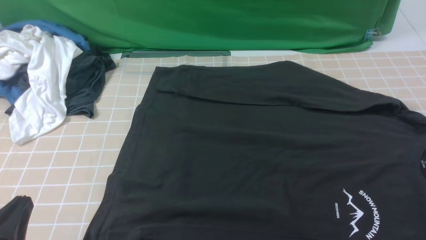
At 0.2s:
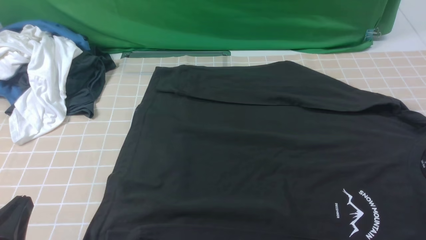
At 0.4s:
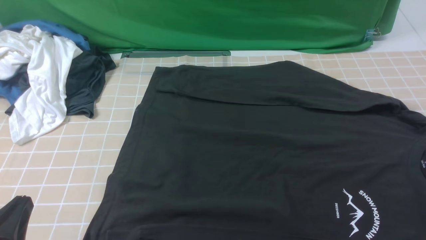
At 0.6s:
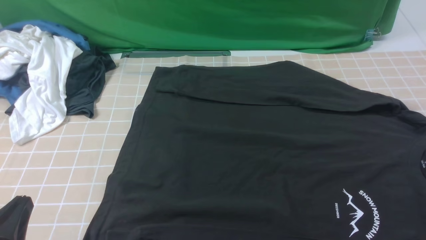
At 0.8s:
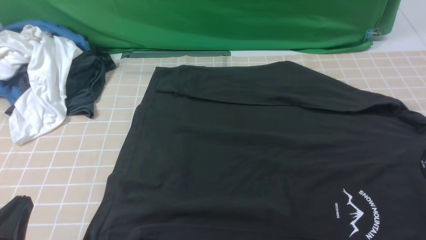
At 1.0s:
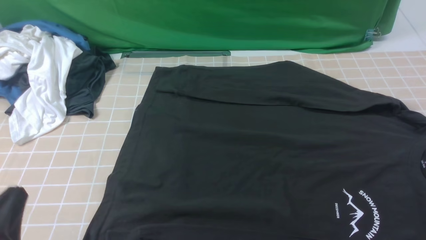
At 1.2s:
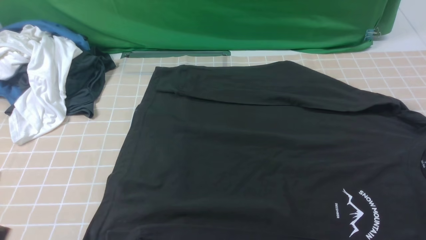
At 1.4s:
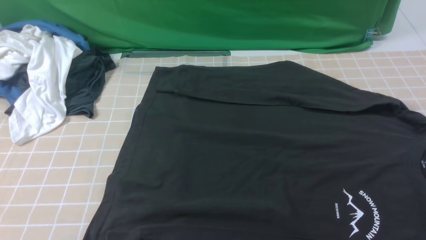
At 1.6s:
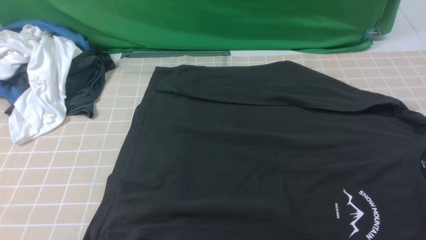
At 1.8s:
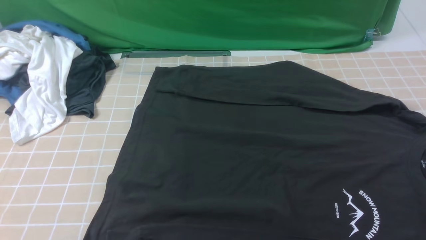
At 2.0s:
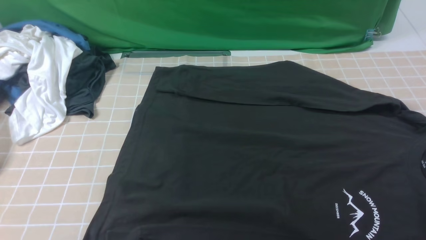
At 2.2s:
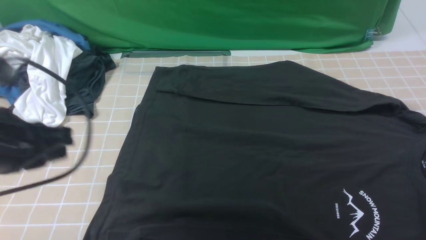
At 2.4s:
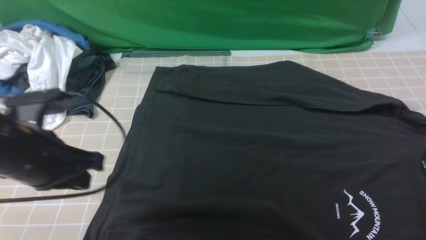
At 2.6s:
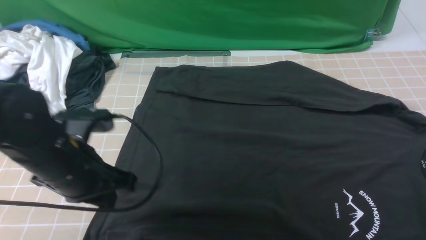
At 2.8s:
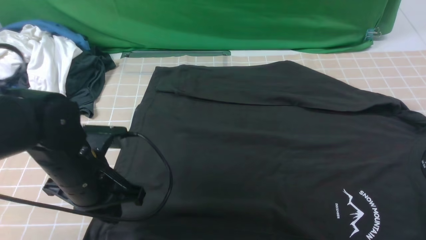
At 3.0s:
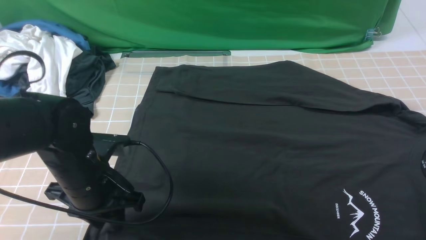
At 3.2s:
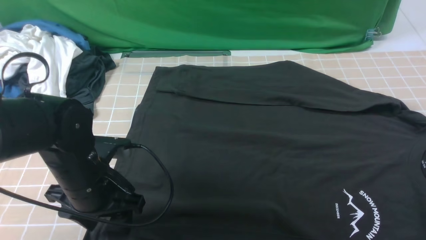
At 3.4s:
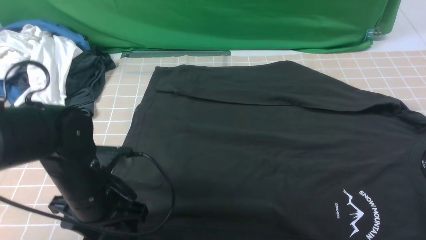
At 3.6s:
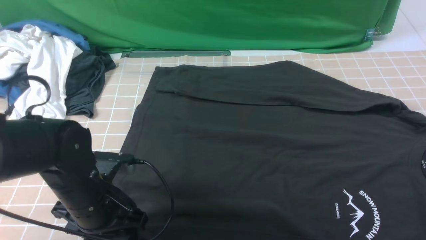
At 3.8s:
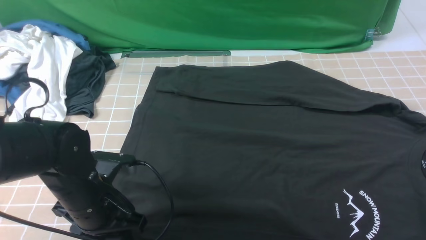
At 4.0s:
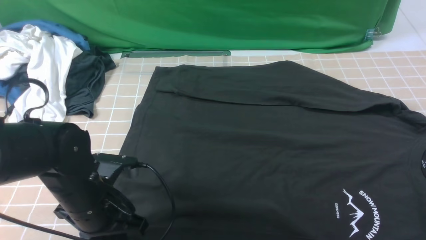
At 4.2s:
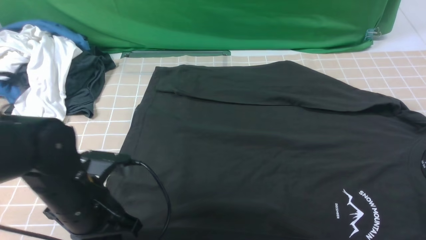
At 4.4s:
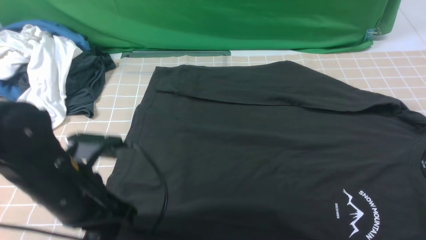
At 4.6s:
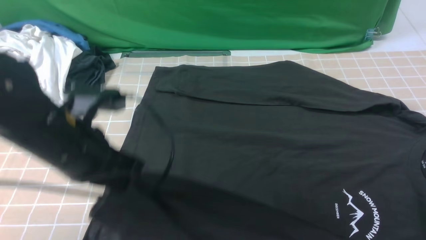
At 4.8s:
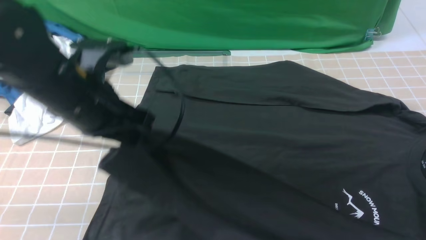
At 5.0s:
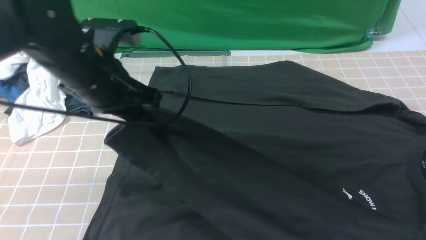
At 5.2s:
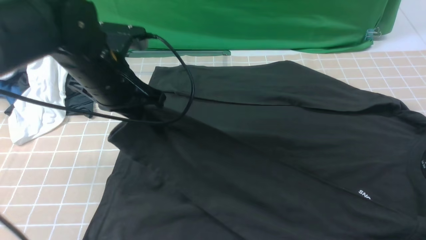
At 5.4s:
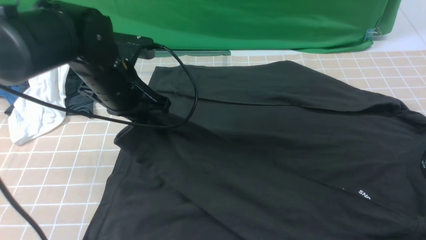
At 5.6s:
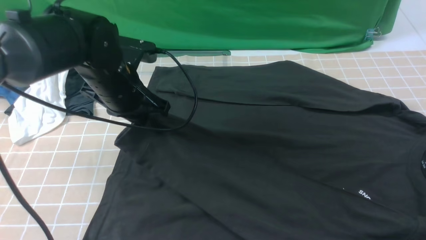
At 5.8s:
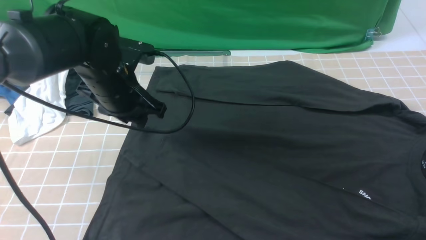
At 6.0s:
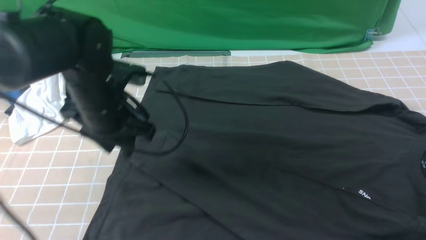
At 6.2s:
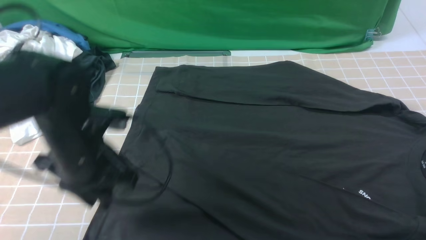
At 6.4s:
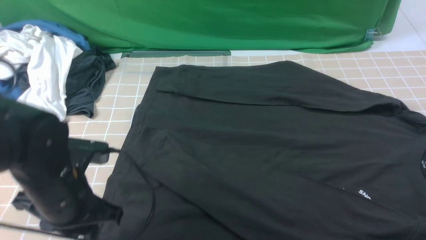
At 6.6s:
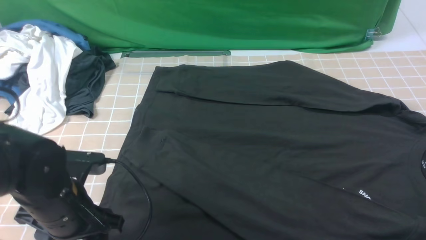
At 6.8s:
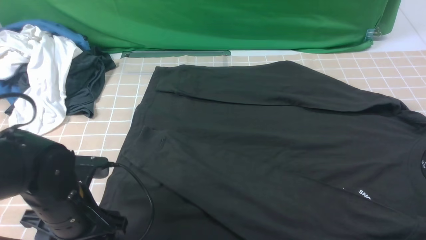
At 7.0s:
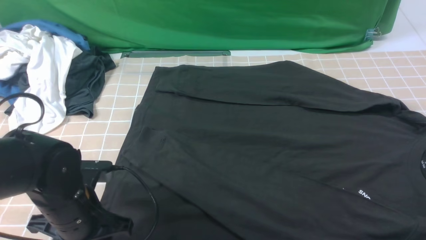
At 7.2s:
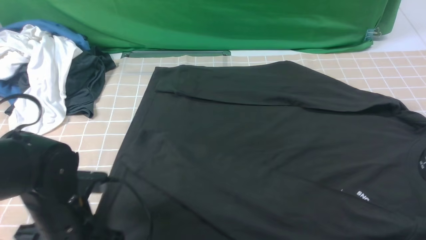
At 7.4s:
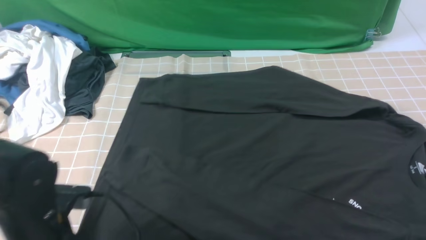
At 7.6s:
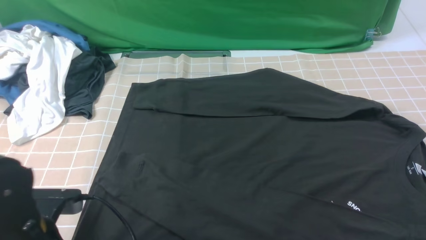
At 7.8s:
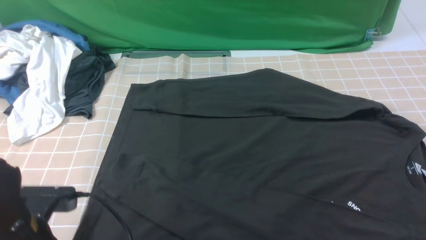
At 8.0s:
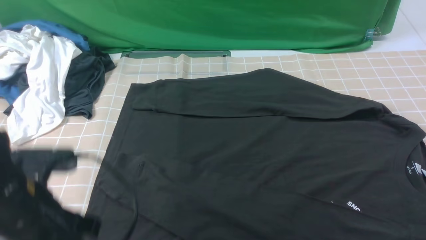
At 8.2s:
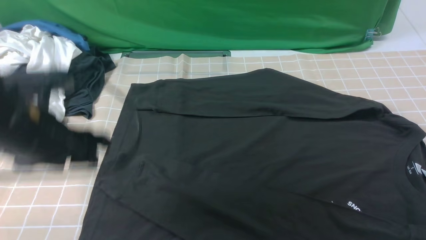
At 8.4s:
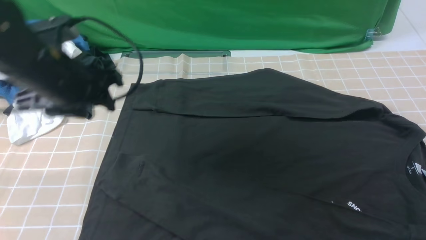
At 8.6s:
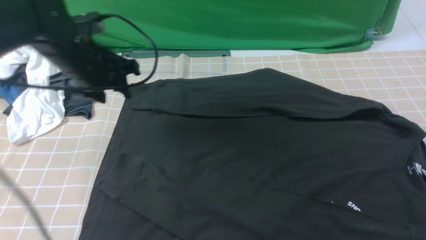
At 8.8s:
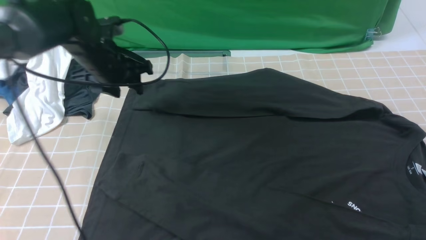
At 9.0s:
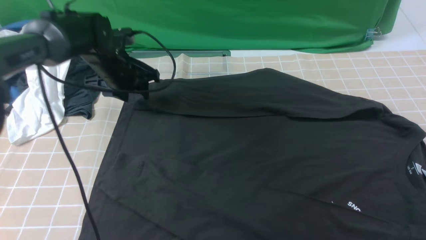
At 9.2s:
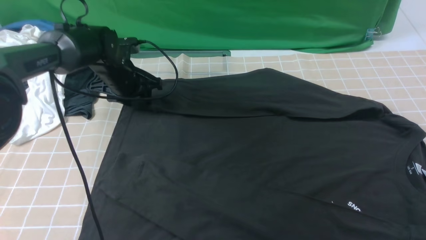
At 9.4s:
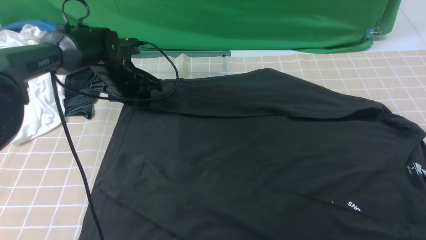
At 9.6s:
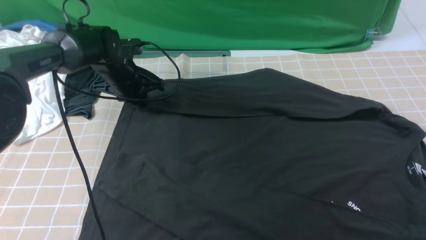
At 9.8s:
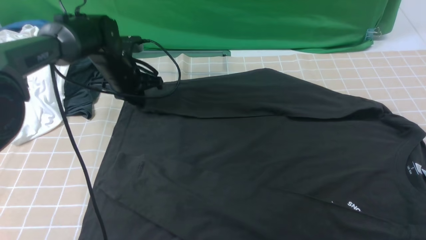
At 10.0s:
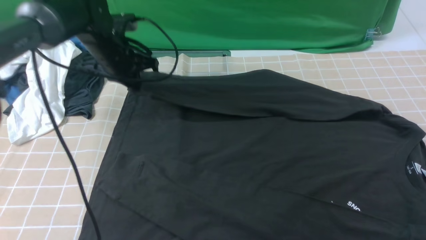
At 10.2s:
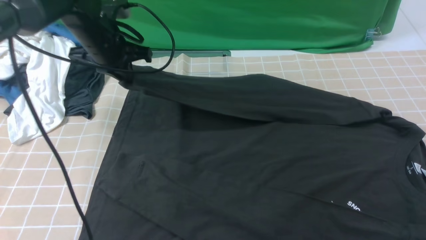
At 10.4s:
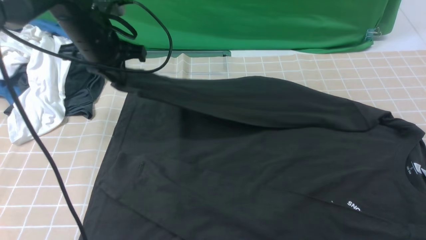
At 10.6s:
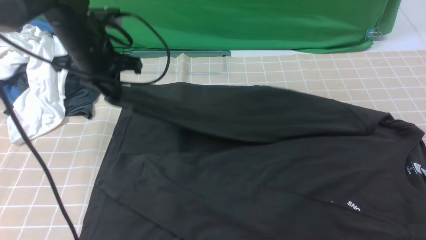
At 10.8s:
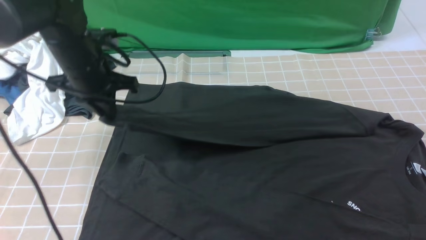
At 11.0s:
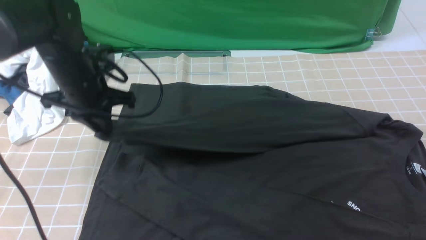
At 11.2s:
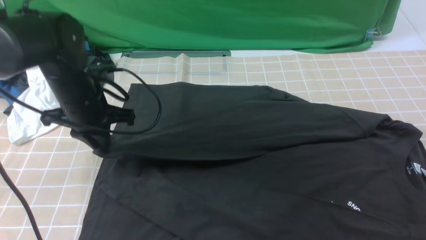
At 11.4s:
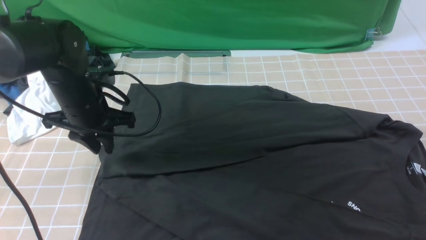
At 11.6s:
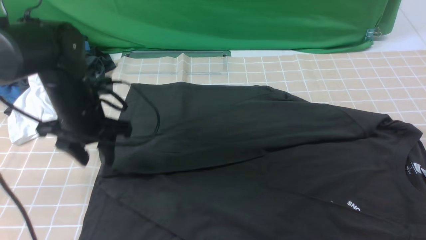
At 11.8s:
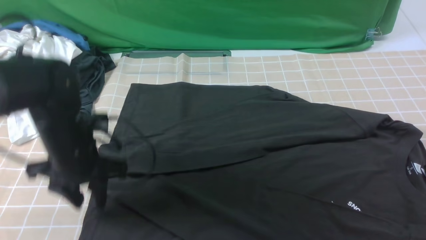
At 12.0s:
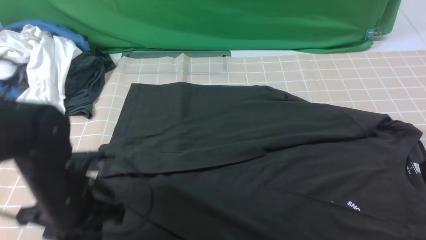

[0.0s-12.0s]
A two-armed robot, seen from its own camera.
Step, 0.0s to 3.8s: use the left arm to clamp the cuff closest to it.
Step, 4.0s to 4.8s: use the left arm to drag and place the cuff at the centered position on the left edge of the fabric.
Step, 5.0s to 9.4s: use the left arm to clamp the cuff farthest from it.
Step, 9.8s to 11.2s: use the left arm to drag and drop the cuff onto the cuff closest to the left arm.
0.0s to 1.6s: The left gripper goes approximately 10 cm upward.
1.6s to 3.0s: The left gripper is displaced forward, downward and to the right by approximately 25 cm, and opens.
3.0s to 4.4s: The left gripper moves about 5 cm, and closes.
4.4s to 6.0s: The left gripper travels forward by approximately 10 cm, and opens.
6.0s to 7.6s: The left gripper is displaced backward by about 15 cm, and closes up.
7.6s to 9.0s: The left gripper travels forward by roughly 30 cm, and opens up.
9.0s to 10.4s: The left gripper moves upward, approximately 10 cm, and closes up.
10.4s to 12.0s: The left gripper travels backward and downward by approximately 20 cm, and opens, while the right gripper travels forward by about 5 cm.

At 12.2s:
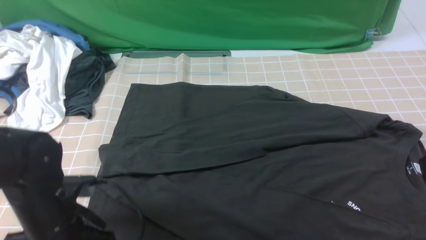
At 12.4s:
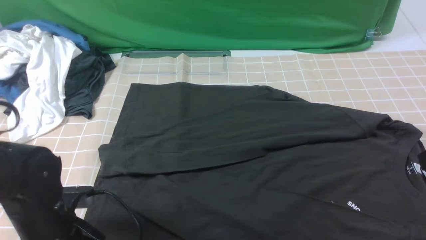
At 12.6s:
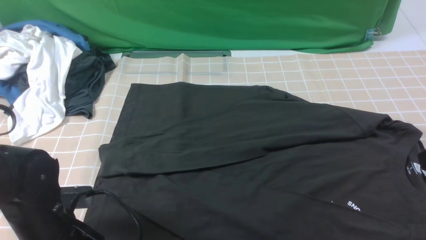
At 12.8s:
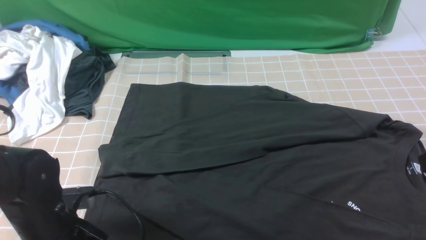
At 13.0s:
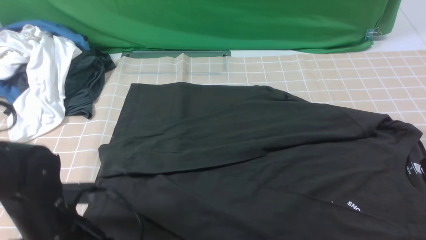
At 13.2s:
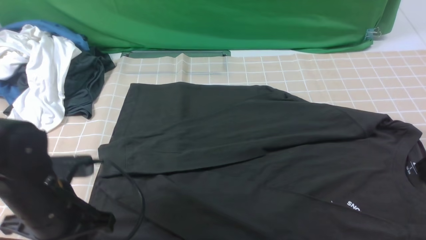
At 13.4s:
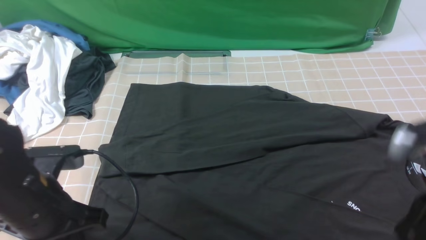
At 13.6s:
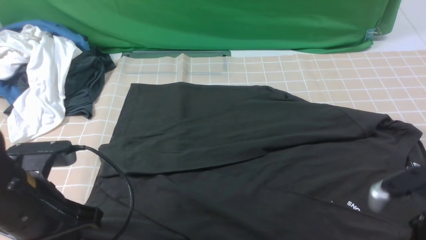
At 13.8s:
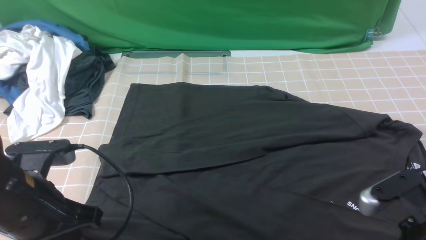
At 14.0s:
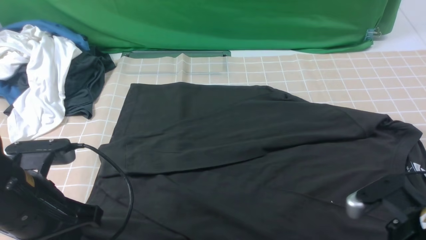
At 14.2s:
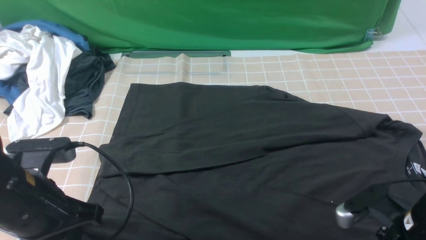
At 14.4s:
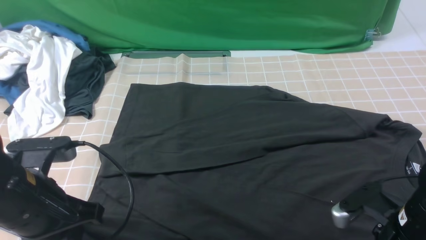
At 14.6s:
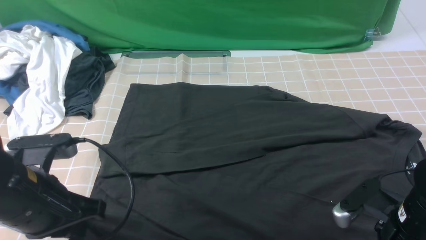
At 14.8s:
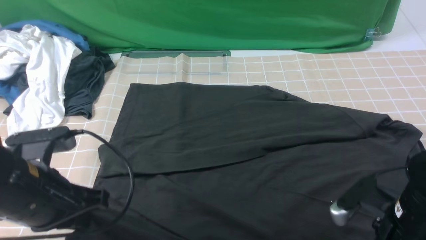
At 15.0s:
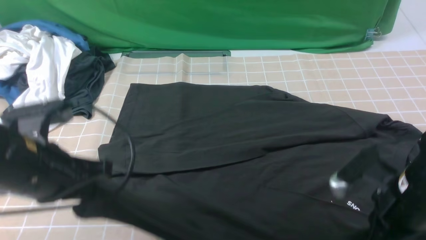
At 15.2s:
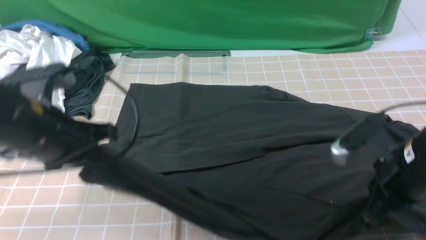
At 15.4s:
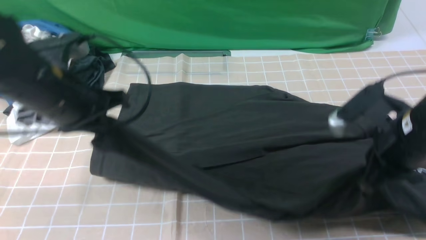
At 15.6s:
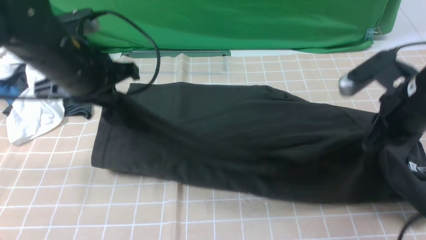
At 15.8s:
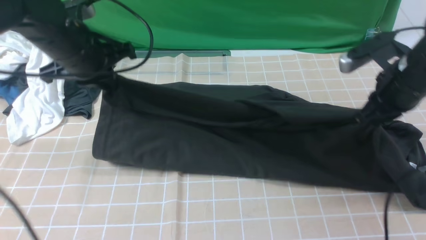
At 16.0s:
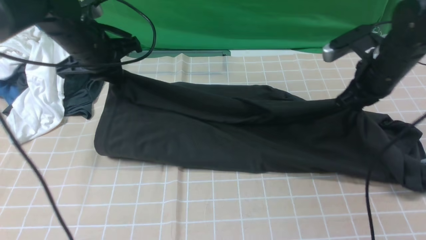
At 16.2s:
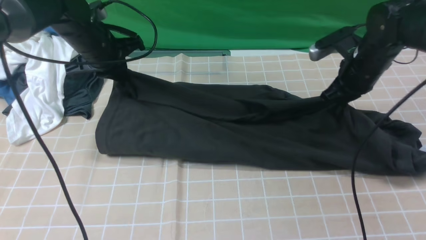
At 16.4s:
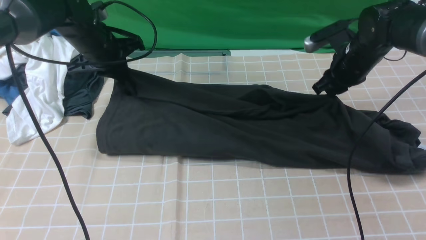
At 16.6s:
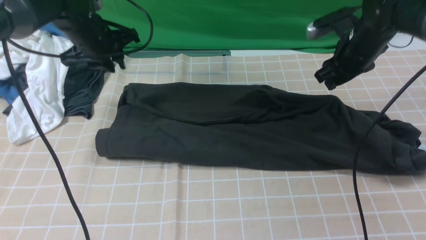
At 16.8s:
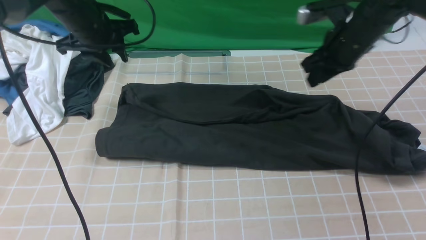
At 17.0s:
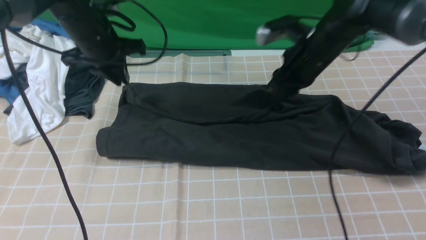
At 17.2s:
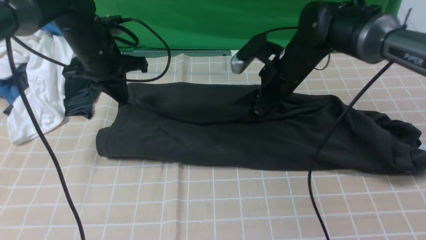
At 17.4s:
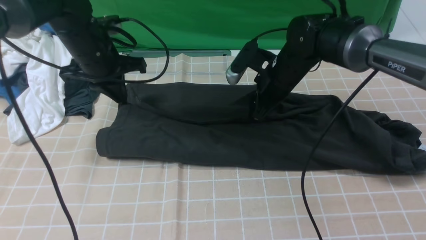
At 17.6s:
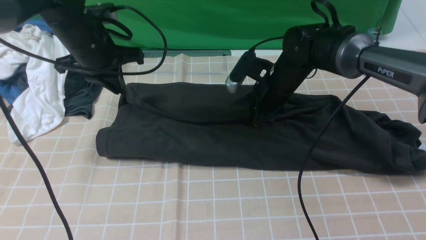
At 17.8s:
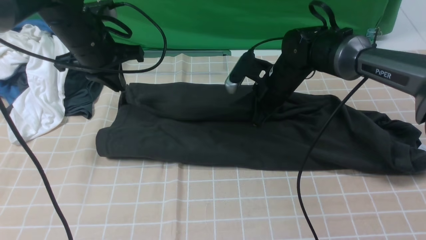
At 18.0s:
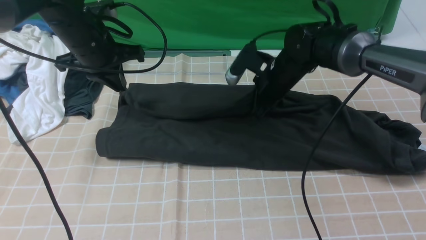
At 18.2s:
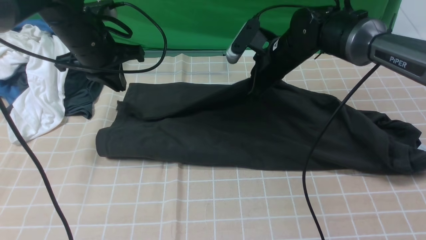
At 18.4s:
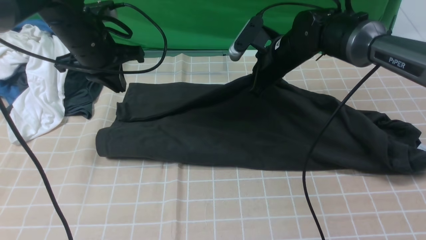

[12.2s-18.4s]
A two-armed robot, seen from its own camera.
Step, 12.2s to 14.6s: use both arms simultaneously to clamp the lower edge of the clothing fabric.
Step, 14.8s to 17.4s: use both arms to drag the lower edge of the fabric forward and fold it over the upper edge.
12.2s to 13.8s: The left gripper travels upward by about 5 cm, and closes. The right gripper is displaced downward by about 10 cm, and opens up.
13.8s to 15.4s: The two grippers go roughly 15 cm forward and upward. The right gripper closes.
15.4s to 16.8s: Both grippers move forward, approximately 20 cm. The right gripper opens up.
16.8s to 18.4s: The left gripper closes. The right gripper travels to the left by roughly 10 cm, and closes its fingers.
